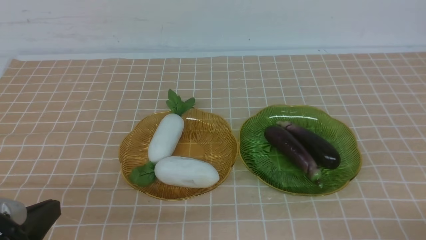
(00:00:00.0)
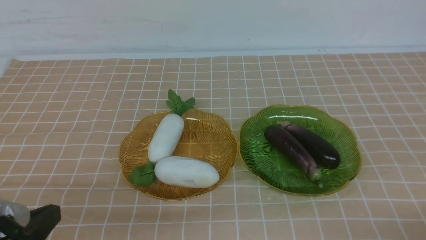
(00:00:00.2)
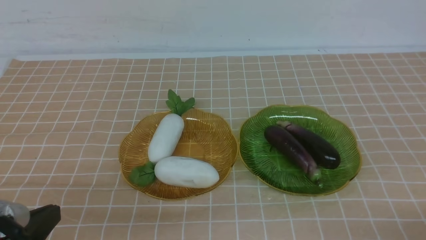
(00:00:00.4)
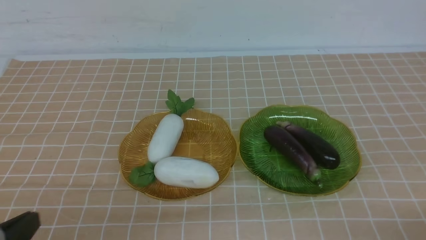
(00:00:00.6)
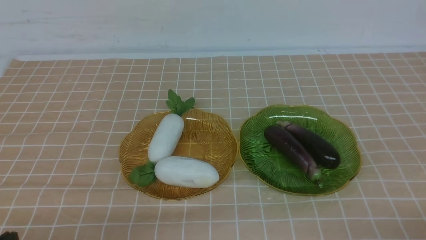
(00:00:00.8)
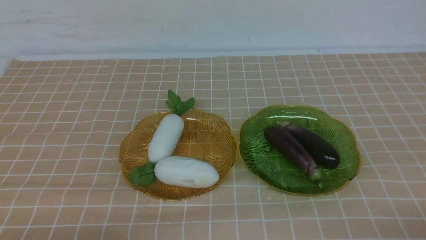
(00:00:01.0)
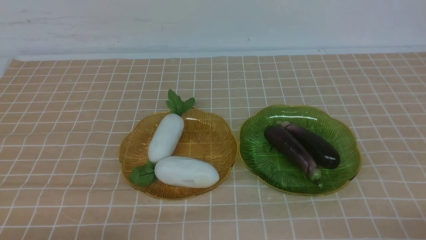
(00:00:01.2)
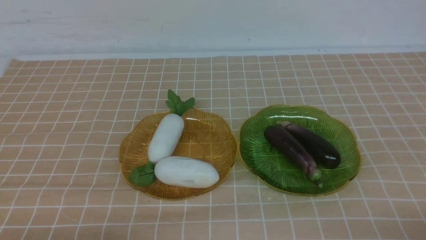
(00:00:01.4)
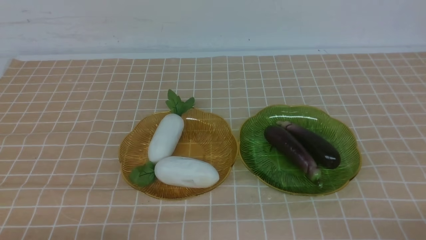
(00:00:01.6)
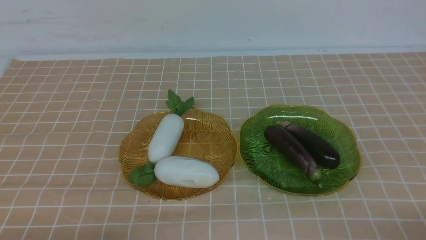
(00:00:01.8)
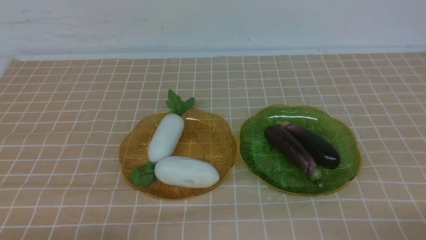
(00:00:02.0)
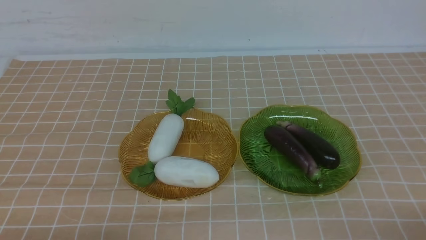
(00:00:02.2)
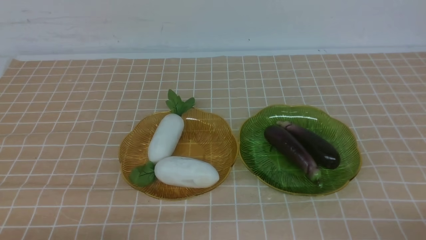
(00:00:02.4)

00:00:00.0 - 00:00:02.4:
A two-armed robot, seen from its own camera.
00:00:00.0 - 00:00:01.2: The left gripper is displaced downward by approximately 10 cm.
00:00:01.2 - 00:00:02.4: The two grippers keep their place.
